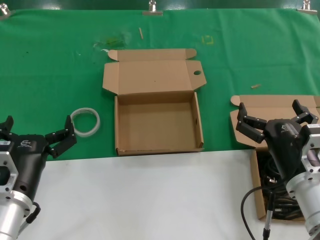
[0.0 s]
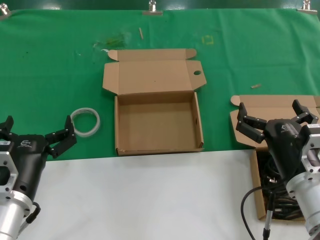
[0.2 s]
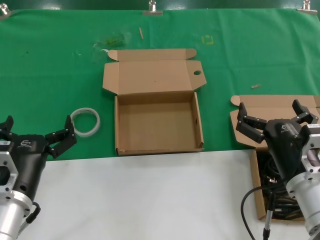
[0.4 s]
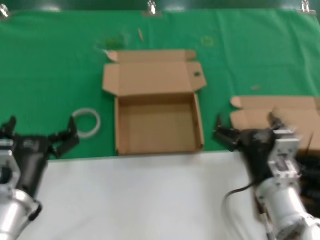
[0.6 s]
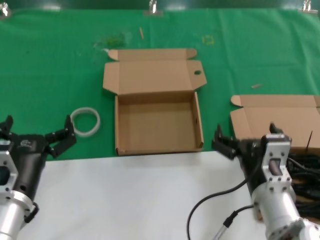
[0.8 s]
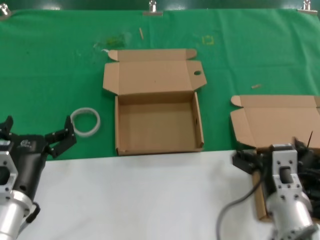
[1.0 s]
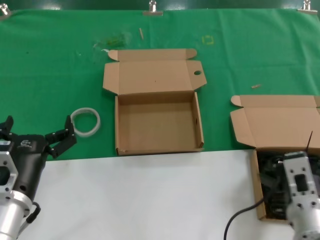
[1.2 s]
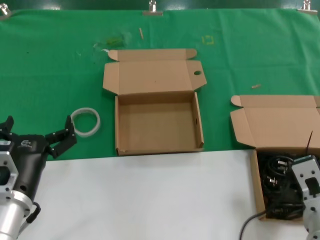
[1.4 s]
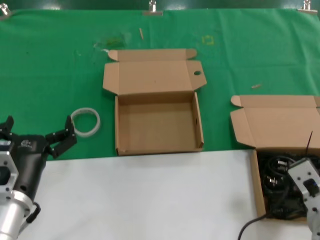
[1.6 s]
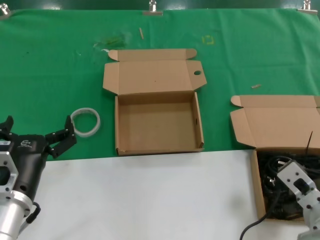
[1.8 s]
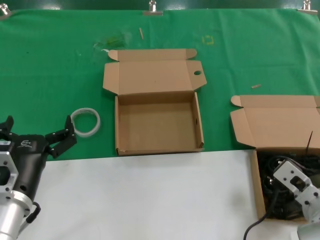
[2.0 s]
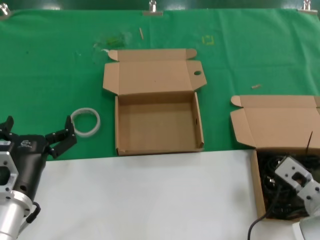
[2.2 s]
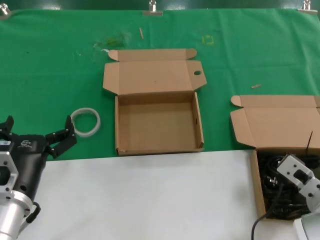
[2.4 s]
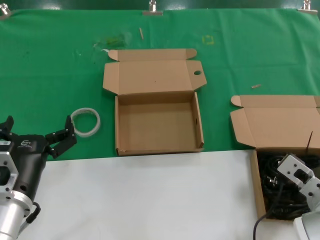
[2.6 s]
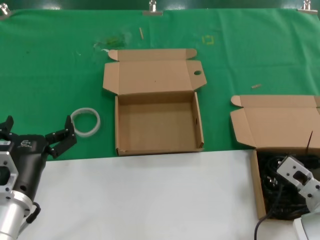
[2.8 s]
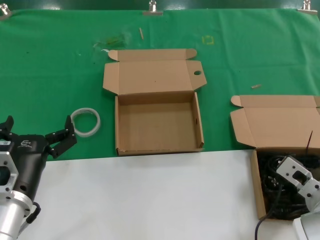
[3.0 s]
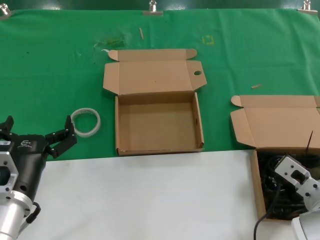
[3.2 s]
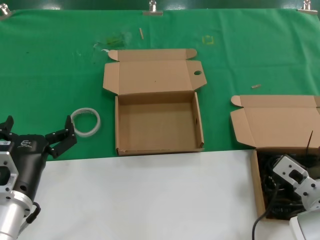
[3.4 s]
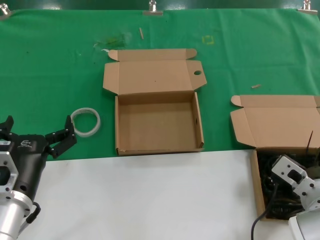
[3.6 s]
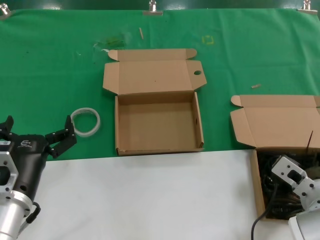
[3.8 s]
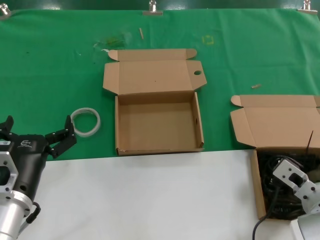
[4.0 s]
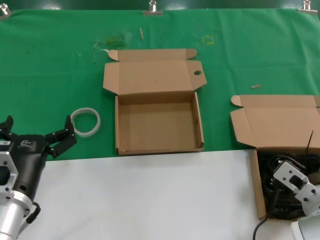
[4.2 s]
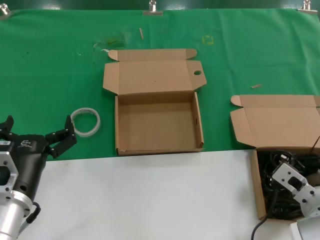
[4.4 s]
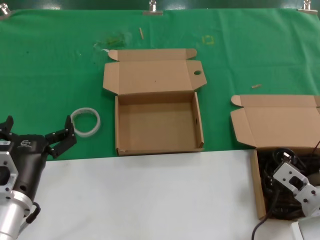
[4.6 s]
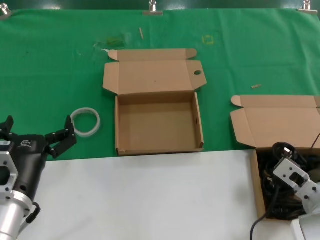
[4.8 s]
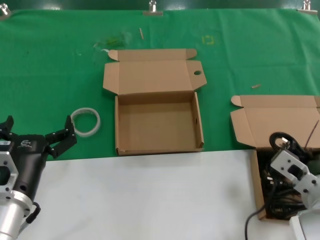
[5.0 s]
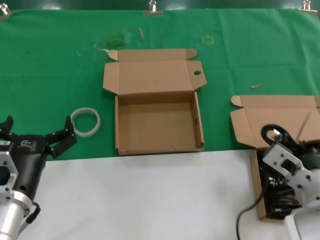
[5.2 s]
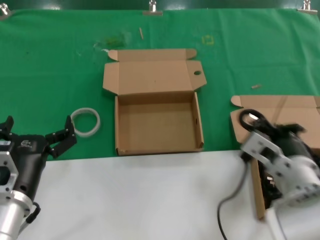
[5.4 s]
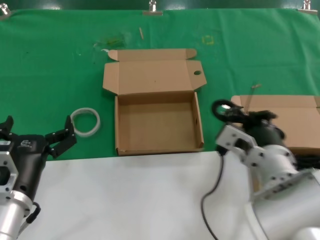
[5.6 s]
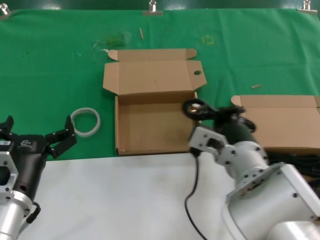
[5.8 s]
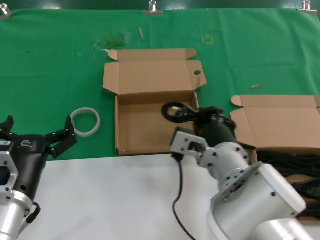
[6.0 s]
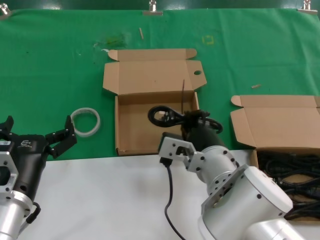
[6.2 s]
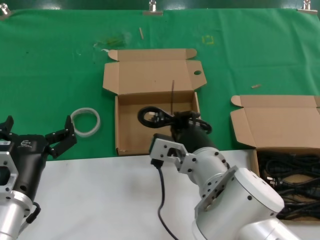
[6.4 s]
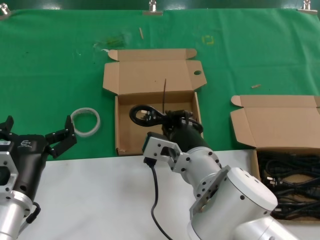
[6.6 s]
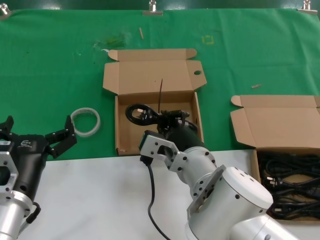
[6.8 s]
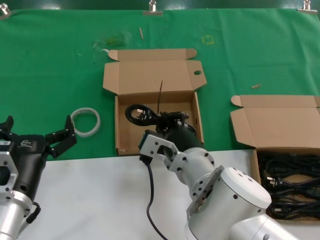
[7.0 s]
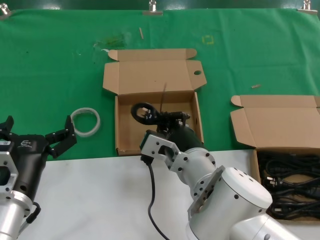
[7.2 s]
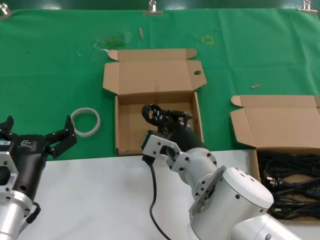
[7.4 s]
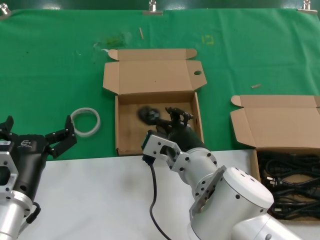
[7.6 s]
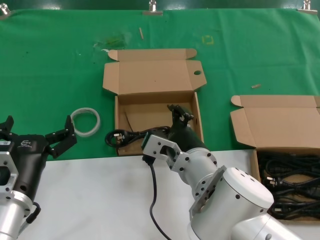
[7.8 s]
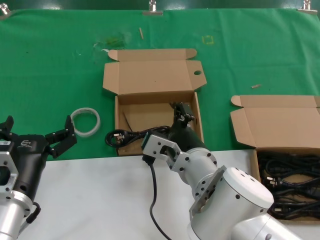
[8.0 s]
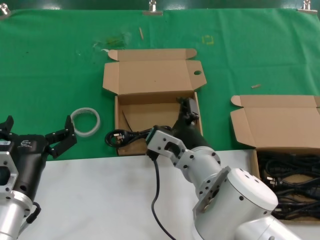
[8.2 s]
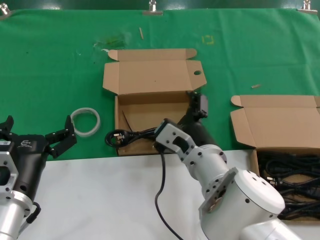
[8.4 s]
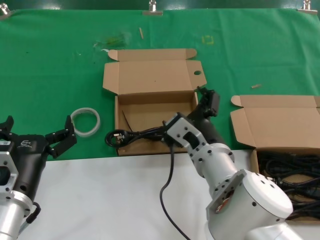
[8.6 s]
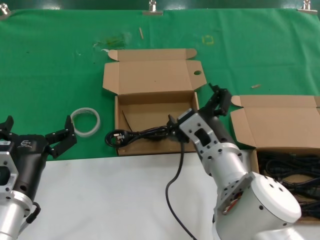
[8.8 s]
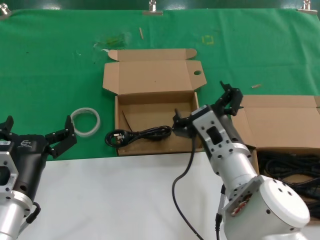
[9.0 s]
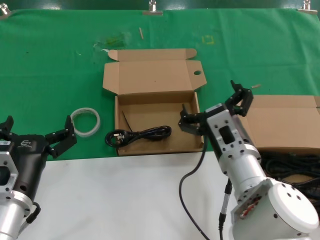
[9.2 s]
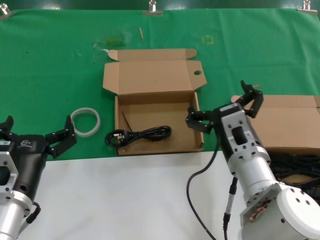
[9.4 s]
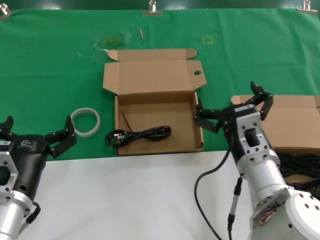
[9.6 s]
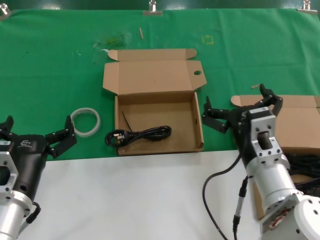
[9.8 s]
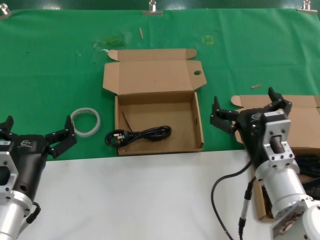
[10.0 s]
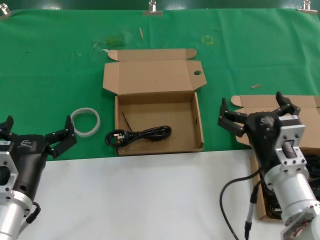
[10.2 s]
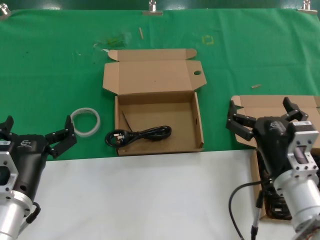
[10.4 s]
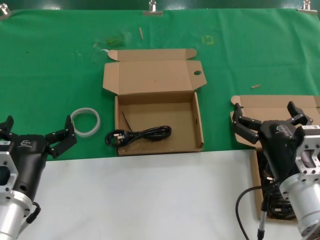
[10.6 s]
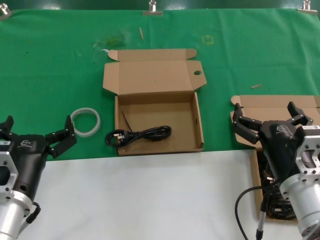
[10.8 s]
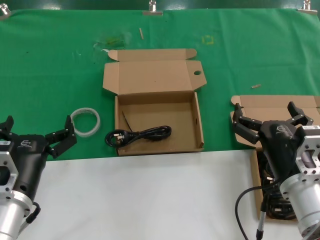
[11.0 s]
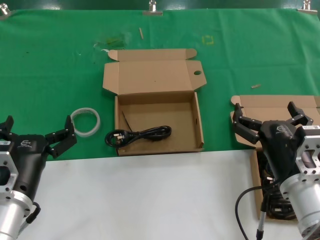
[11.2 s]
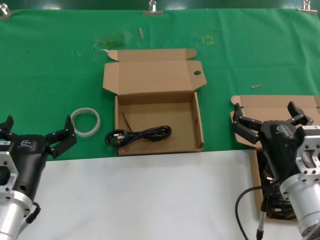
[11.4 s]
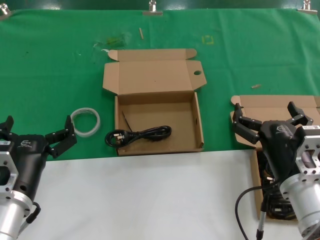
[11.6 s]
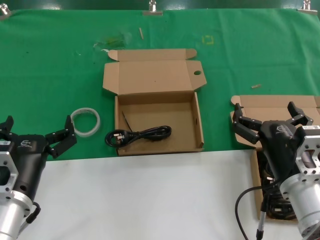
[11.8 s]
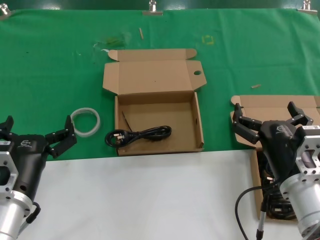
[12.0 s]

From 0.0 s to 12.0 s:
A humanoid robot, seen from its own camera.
Task of the whole recording: take the parts from the box containing them and put them into an empty box.
Step, from 0.0 s to 4.4 s: Grasp the data cable.
Step, from 4.6 s to 7.8 s: Place the data cable in the another box.
From 0.0 s to 1.6 s: The right hand changes place by roughly 5 cm.
From 1.6 s to 3.0 s: The right hand travels forward by approximately 5 cm.
From 3.0 s to 4.4 s: Both hands stay put.
From 4.4 s to 6.0 s: The right hand shifts about 20 cm to the left and upward.
From 6.0 s to 7.6 s: The hands make only small movements.
From 7.6 s to 9.0 s: The right hand heads to the right, covering about 5 cm.
From 9.0 s to 10.4 s: The right hand moves to the right, roughly 10 cm.
From 10.4 s to 12.0 s: The hands make only small movements.

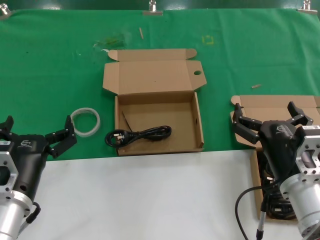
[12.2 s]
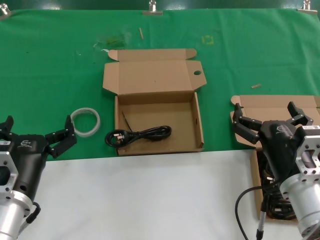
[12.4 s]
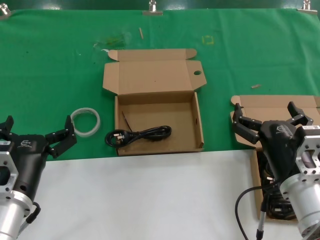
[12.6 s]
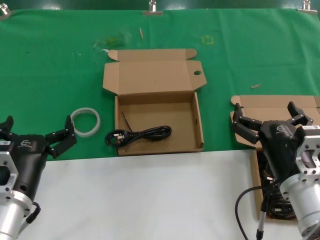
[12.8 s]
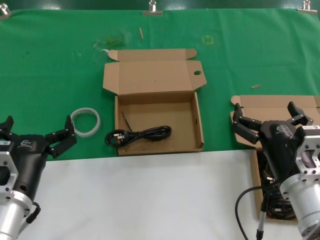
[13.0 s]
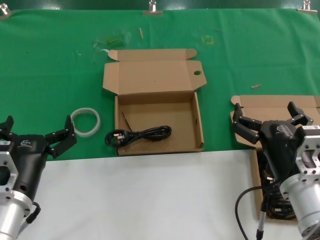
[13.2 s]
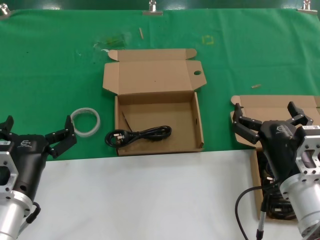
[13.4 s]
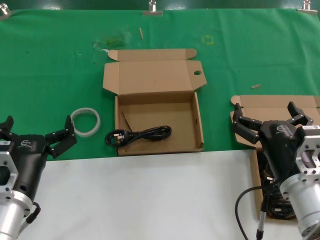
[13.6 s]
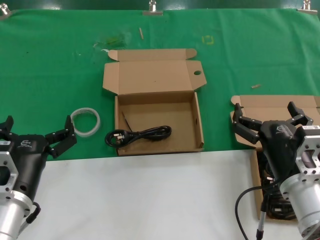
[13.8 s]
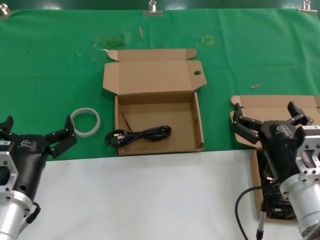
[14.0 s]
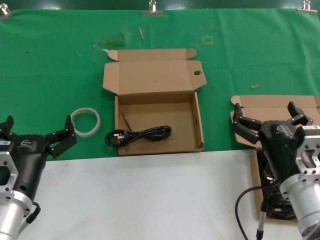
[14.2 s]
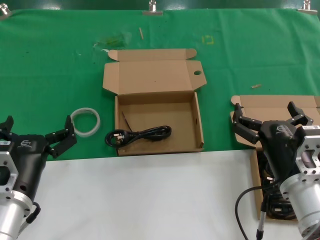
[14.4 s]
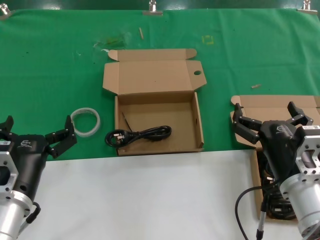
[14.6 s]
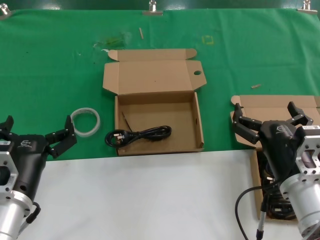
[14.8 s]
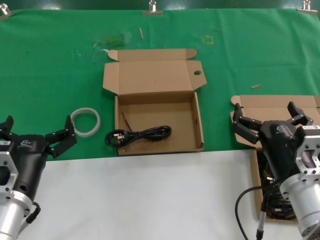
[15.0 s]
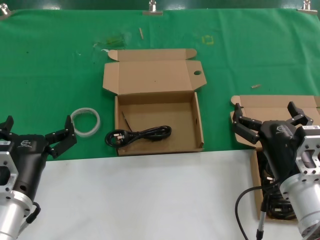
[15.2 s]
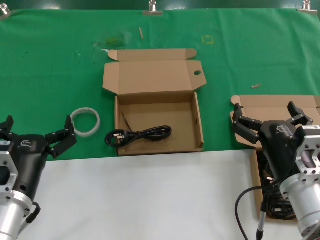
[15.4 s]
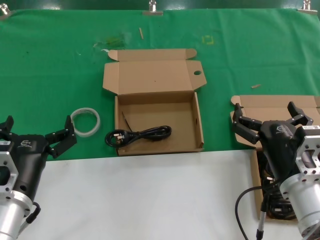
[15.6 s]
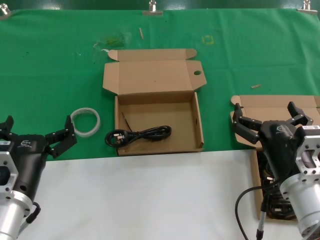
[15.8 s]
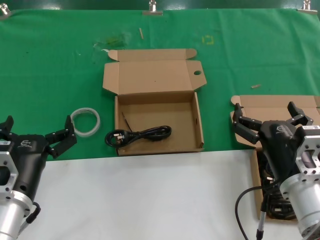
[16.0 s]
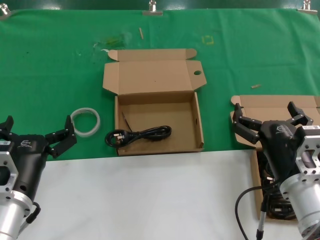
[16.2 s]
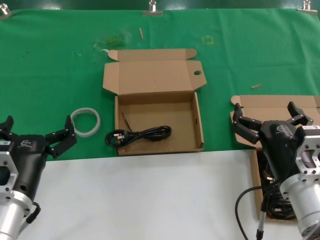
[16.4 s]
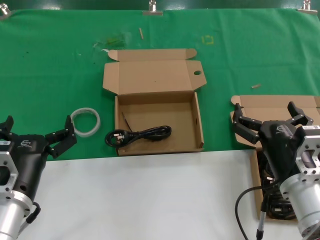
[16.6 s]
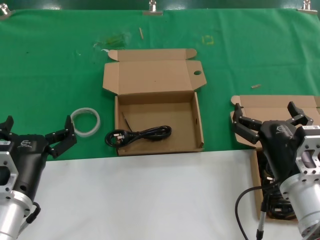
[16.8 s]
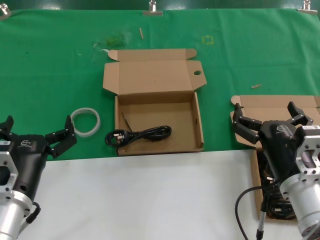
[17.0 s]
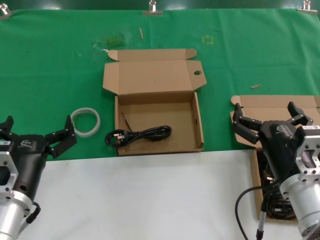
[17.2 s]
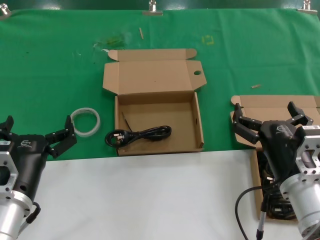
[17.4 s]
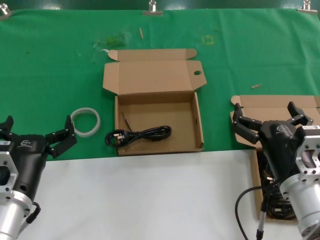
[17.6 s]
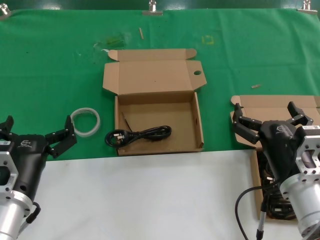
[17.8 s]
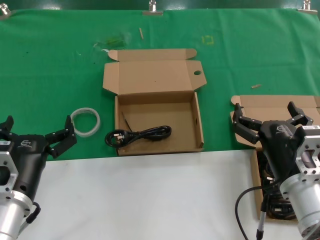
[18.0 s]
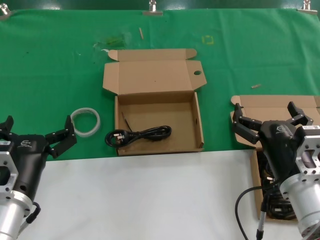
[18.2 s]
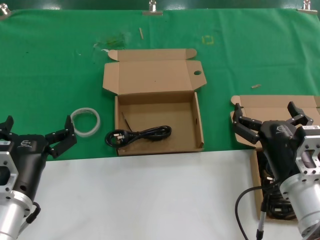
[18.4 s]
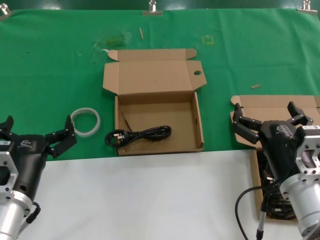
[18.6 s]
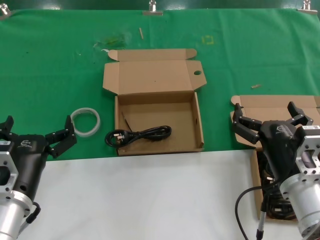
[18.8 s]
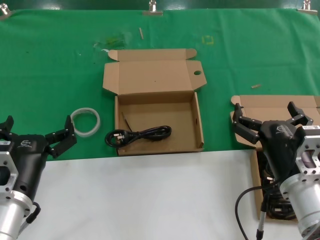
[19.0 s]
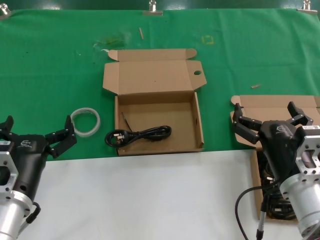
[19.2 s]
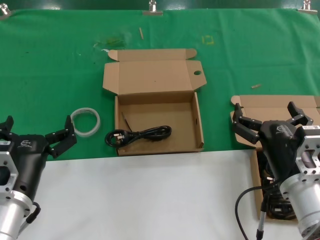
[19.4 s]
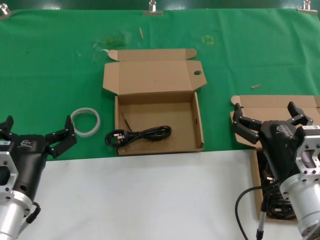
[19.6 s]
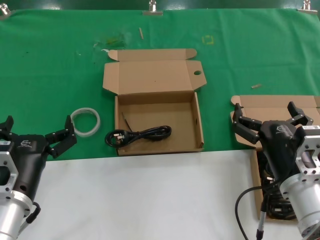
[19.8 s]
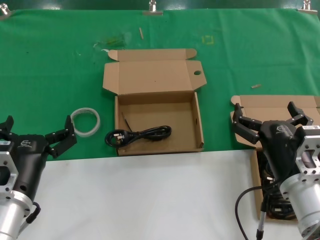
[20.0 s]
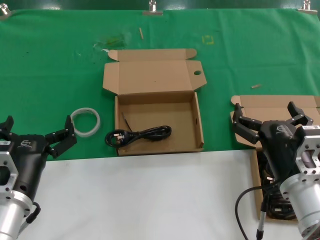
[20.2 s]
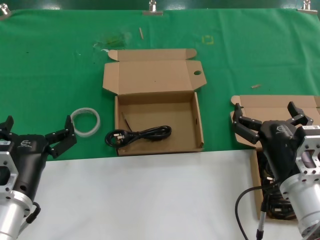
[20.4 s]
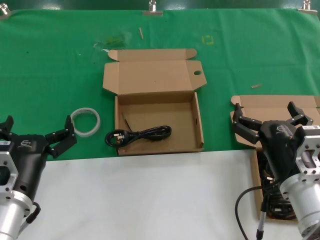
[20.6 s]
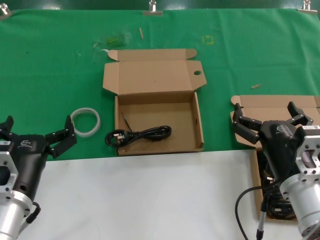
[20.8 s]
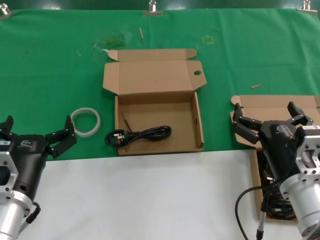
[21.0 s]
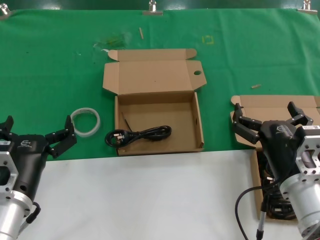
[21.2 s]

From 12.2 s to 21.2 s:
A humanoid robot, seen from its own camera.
Task of the whole recording: take the parts from the box containing them and put them into an empty box.
From 12.2 s to 21.2 s: Both hands stay put.

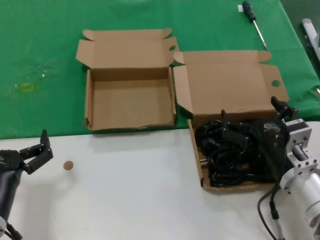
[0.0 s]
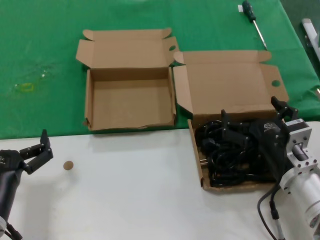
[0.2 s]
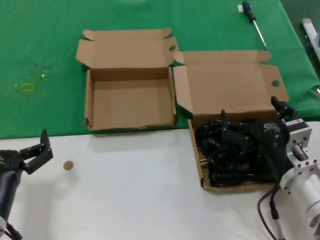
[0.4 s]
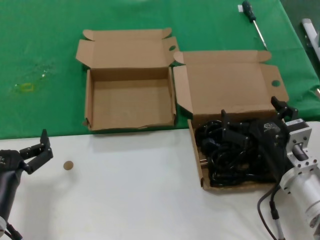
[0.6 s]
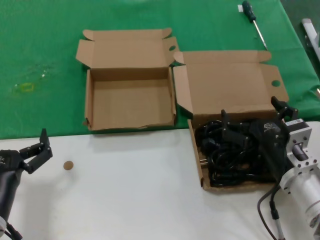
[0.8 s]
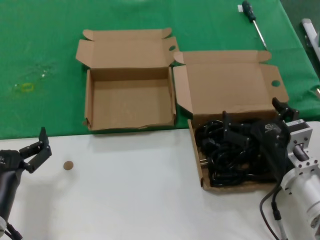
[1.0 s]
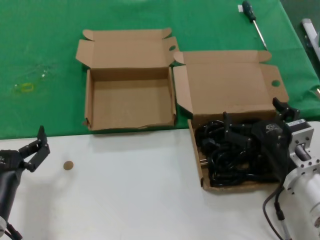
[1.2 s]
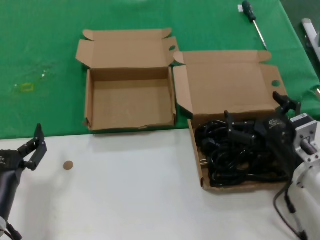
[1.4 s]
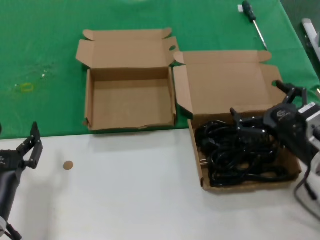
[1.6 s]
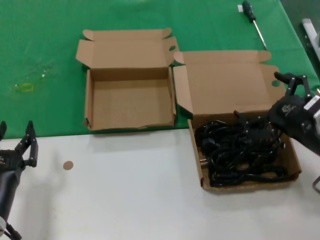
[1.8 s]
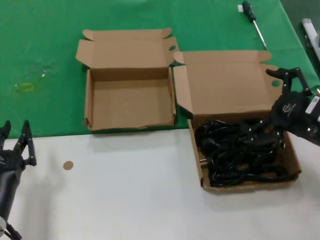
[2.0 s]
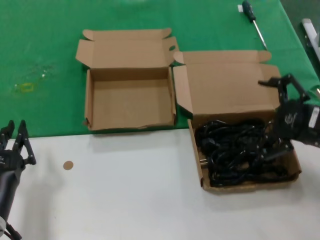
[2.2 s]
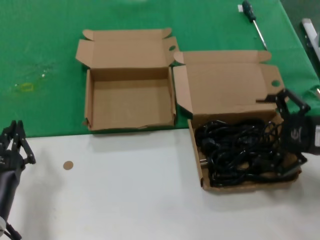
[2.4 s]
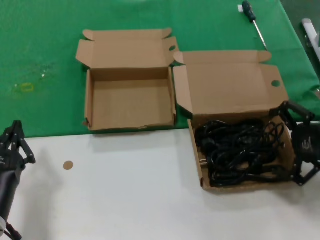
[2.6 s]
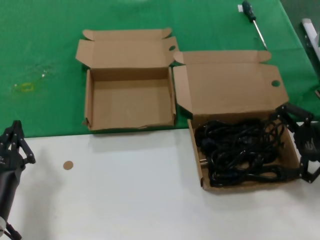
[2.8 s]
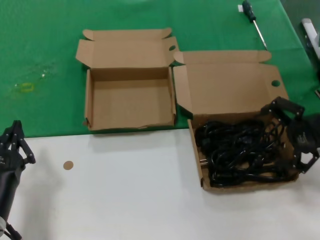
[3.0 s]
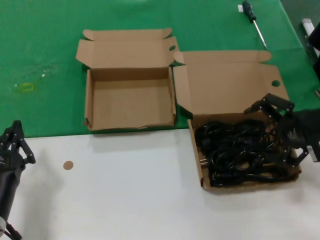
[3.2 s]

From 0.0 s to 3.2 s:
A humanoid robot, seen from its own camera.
Task of the whole recording: take the parts from the box containing them and put them into an empty box.
From 0.0 s to 1.6 s: The right hand travels to the right by approximately 5 cm.
From 1.6 s to 3.2 s: The right hand travels upward, to the right and forward by about 15 cm.
